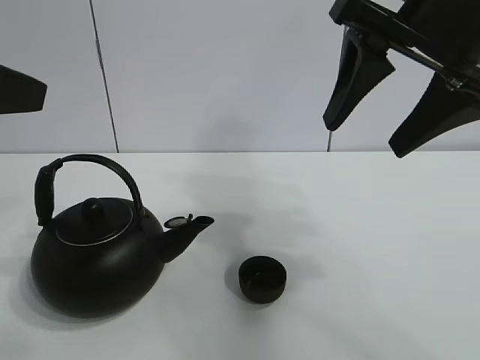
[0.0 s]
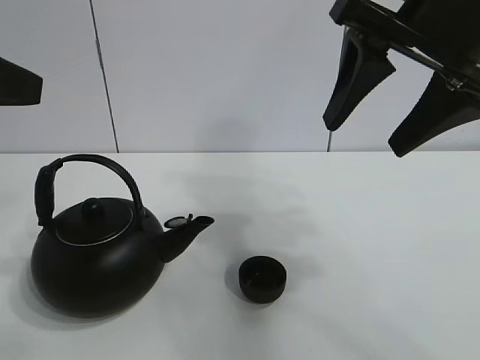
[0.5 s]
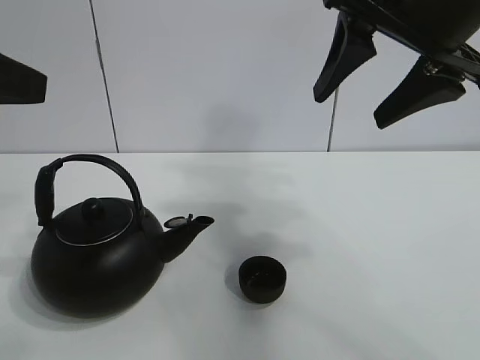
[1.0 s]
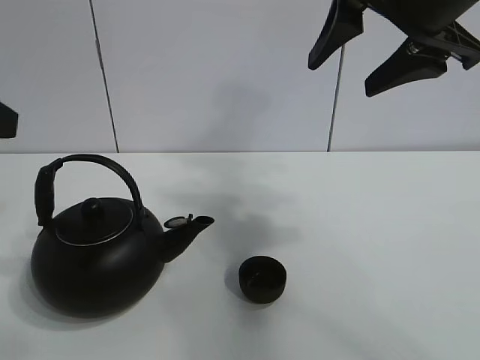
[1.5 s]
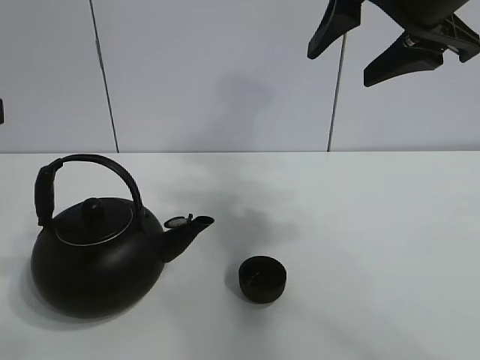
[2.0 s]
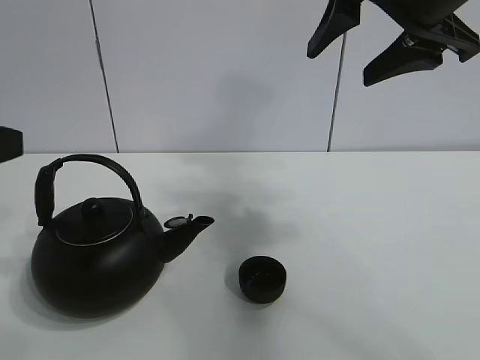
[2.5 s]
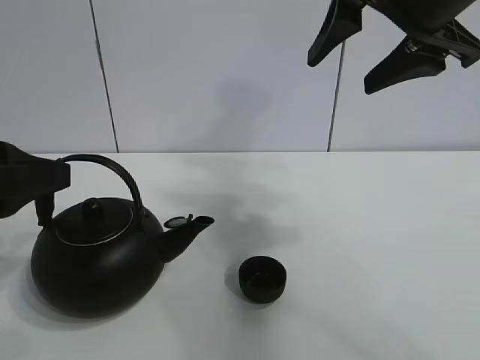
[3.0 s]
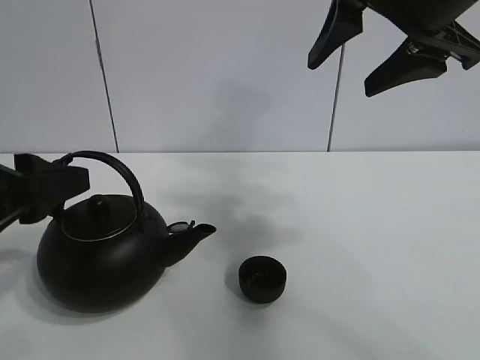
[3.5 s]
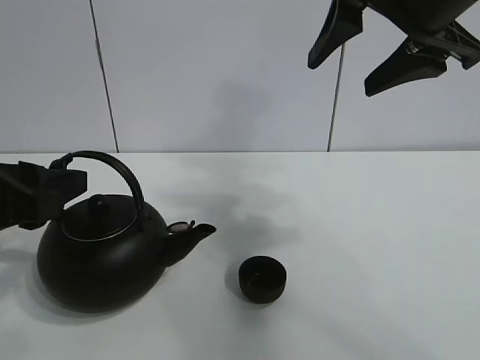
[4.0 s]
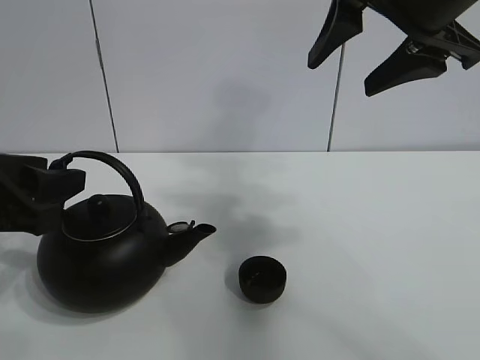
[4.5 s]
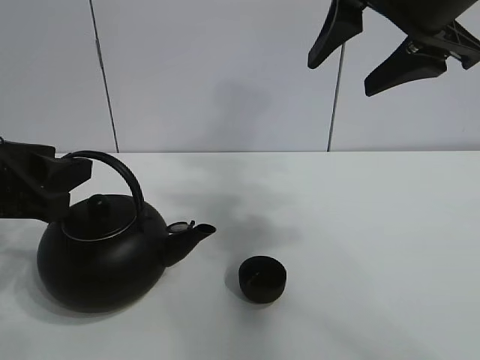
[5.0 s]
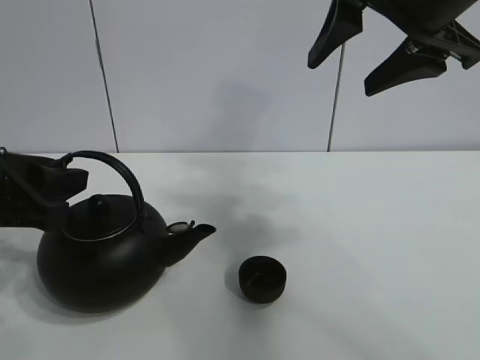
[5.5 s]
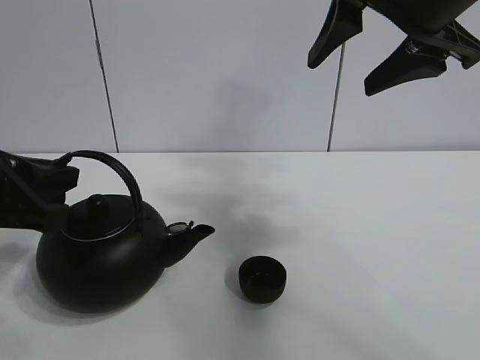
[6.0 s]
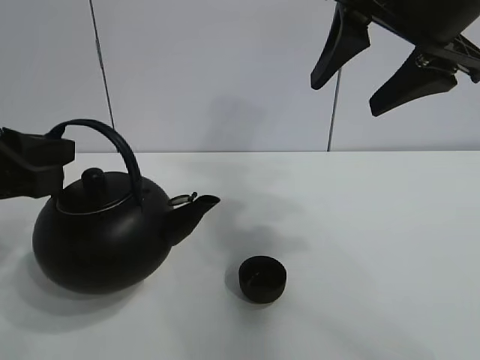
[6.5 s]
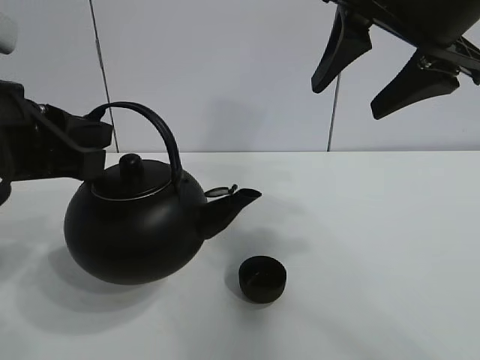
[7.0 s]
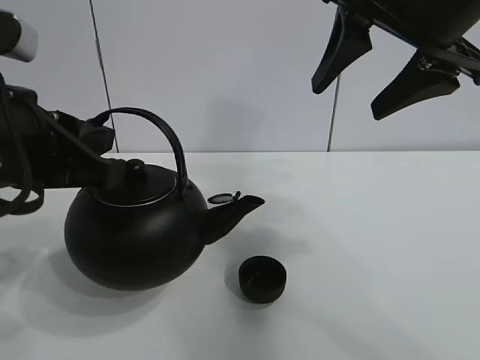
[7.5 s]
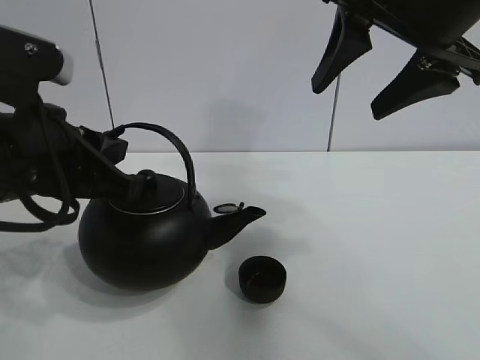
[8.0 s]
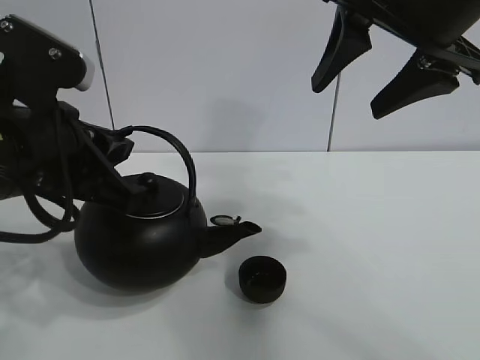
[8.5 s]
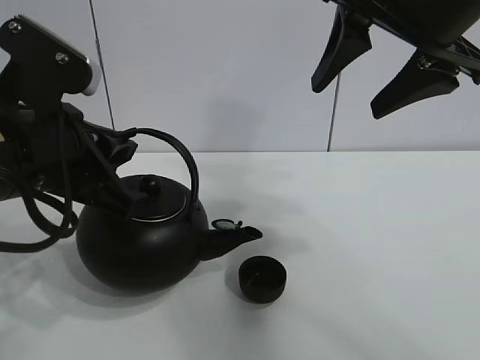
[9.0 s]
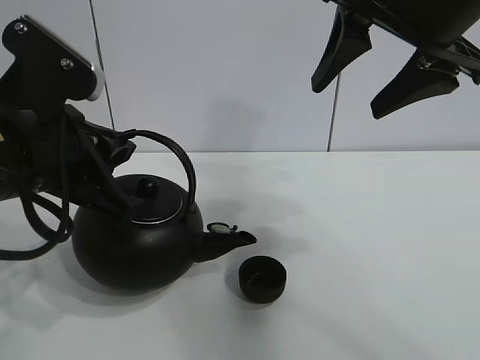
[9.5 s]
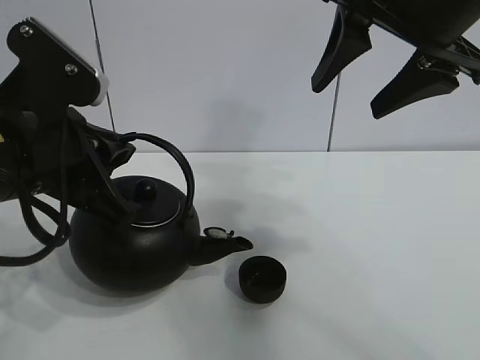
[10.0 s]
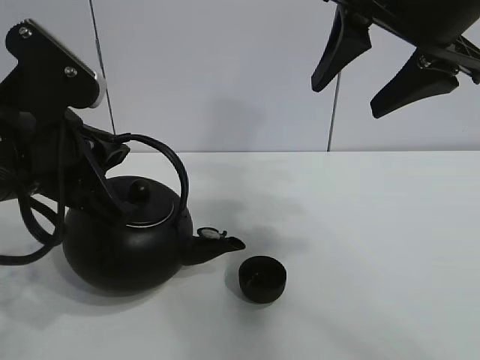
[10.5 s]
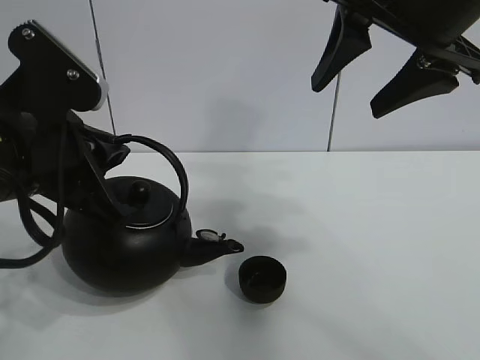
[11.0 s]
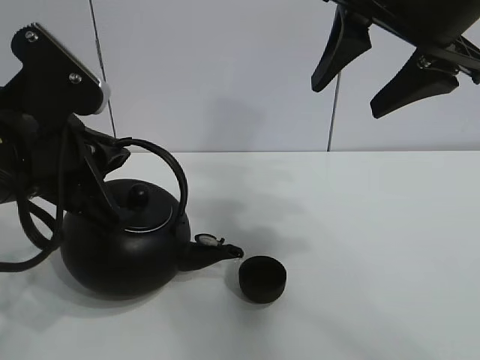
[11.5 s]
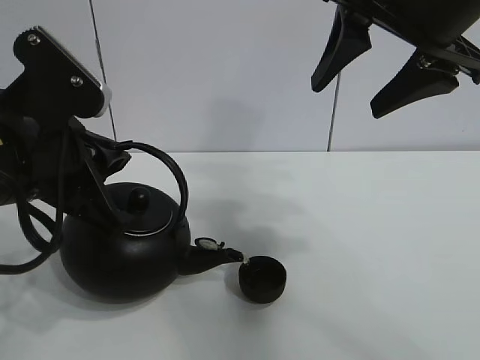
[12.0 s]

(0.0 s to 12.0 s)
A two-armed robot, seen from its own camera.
Task of the whole recording: pour tea into the teacup.
Step, 0.0 s - 6.0 s: Pick up the teapot with the left gripper.
2.0 s - 4.0 s: The left gripper is displaced downward by some 10 cm.
4.0 s - 6.0 s: The left gripper closes up.
6.0 s - 8.0 s: The left gripper moves to the right, roughly 5 cm.
8.0 s - 10.0 s: The grippers make only small movements.
10.0 s - 12.0 s: Neither gripper changes place.

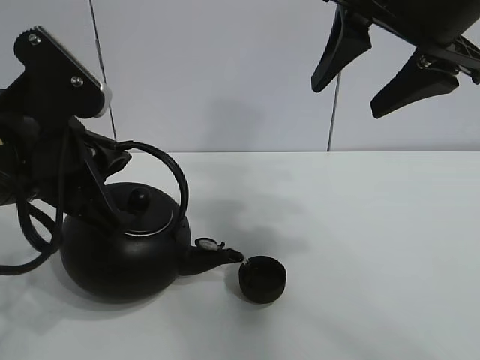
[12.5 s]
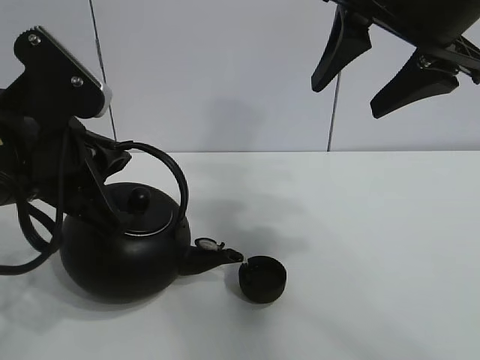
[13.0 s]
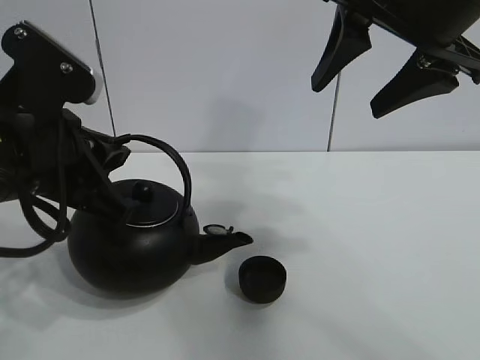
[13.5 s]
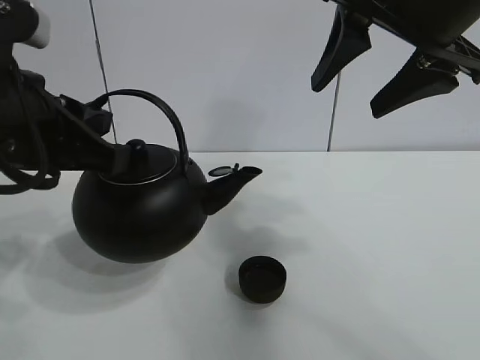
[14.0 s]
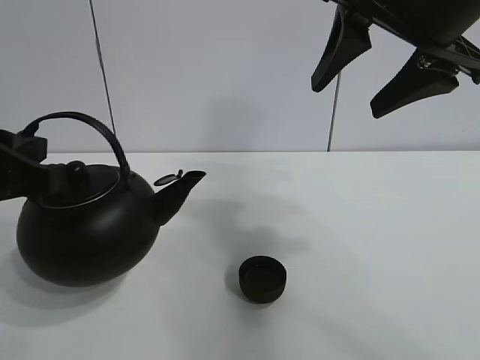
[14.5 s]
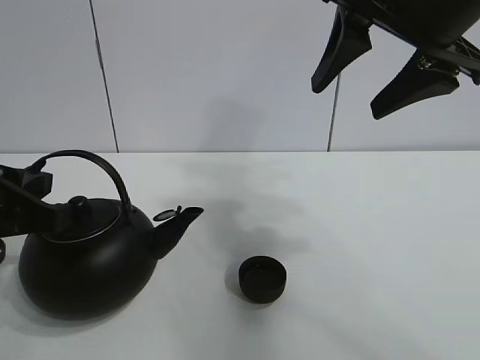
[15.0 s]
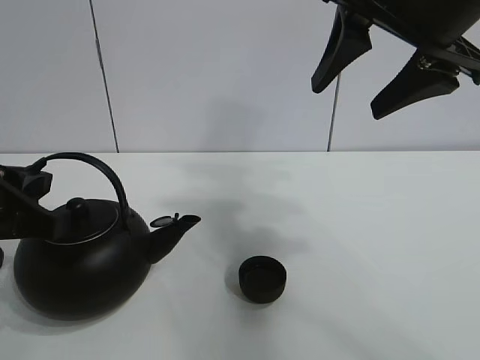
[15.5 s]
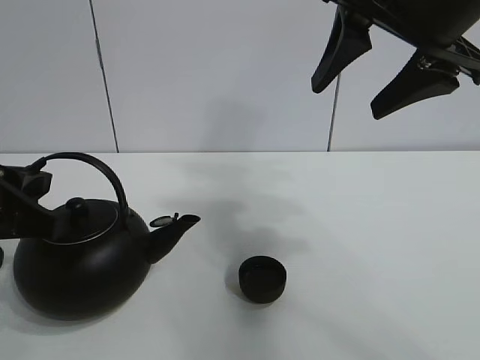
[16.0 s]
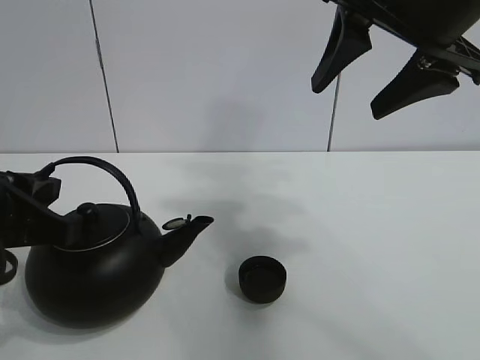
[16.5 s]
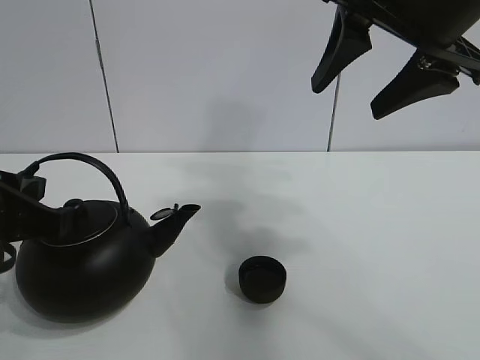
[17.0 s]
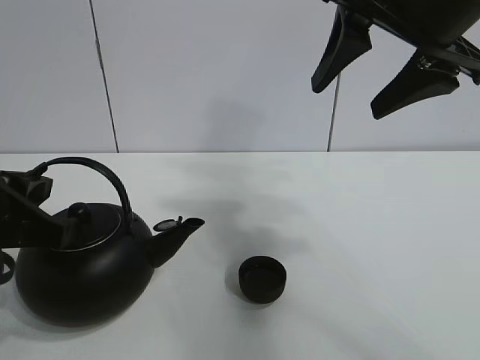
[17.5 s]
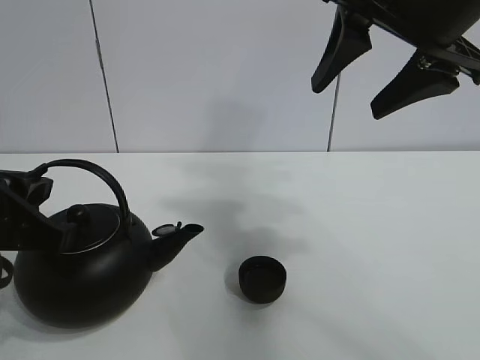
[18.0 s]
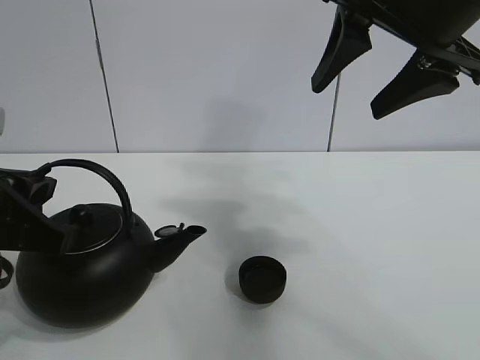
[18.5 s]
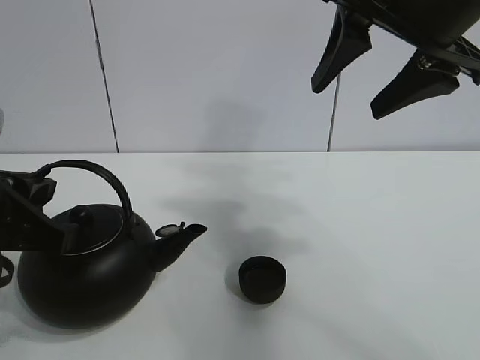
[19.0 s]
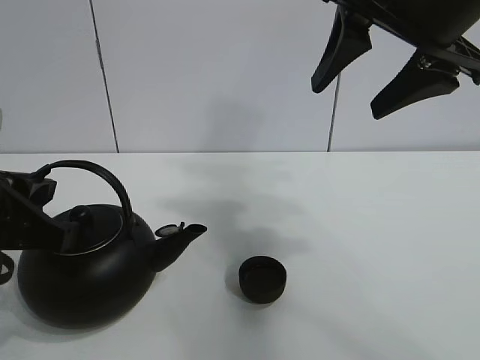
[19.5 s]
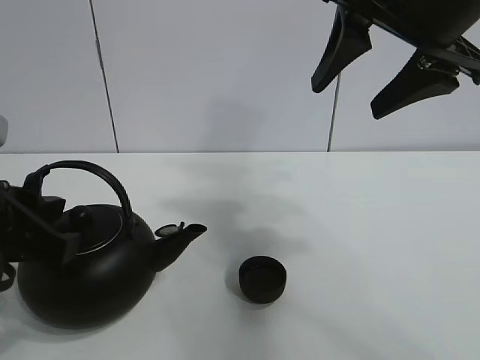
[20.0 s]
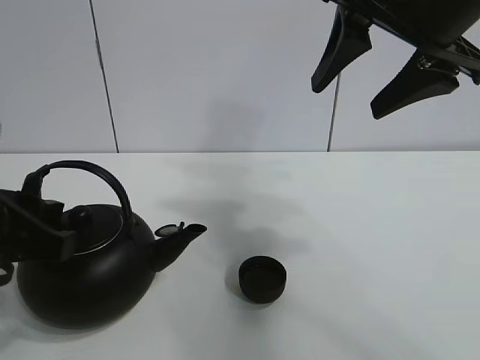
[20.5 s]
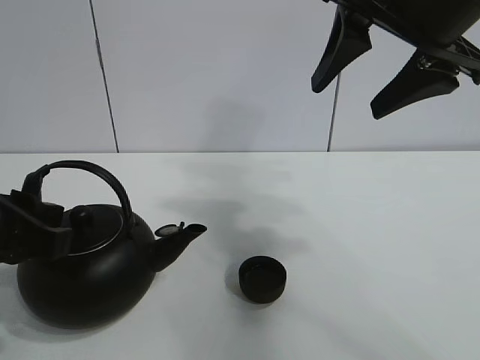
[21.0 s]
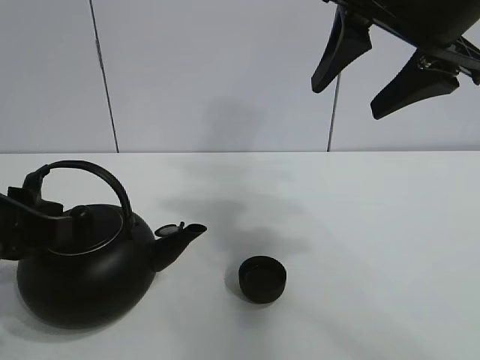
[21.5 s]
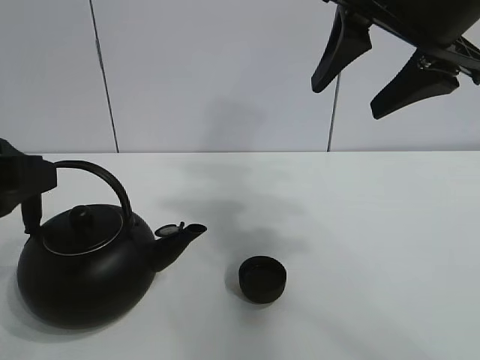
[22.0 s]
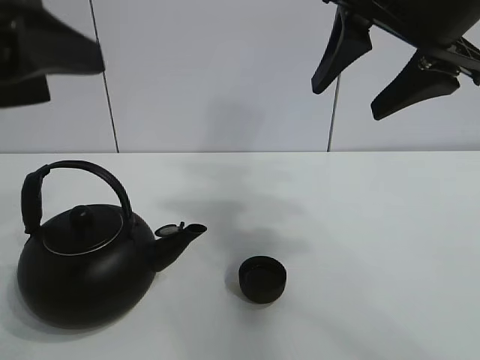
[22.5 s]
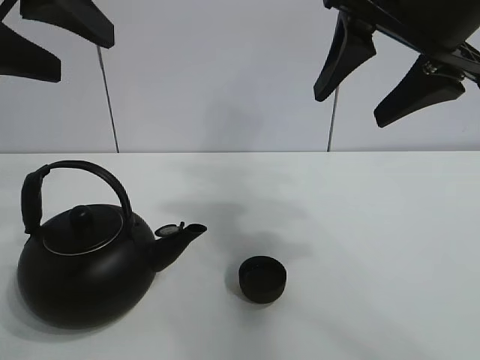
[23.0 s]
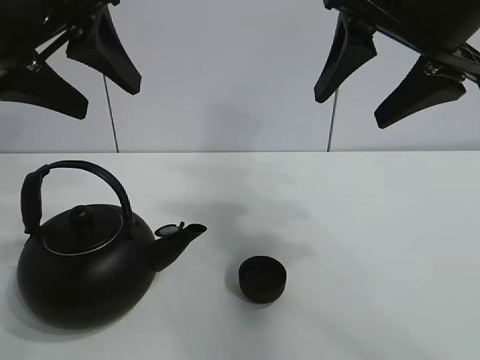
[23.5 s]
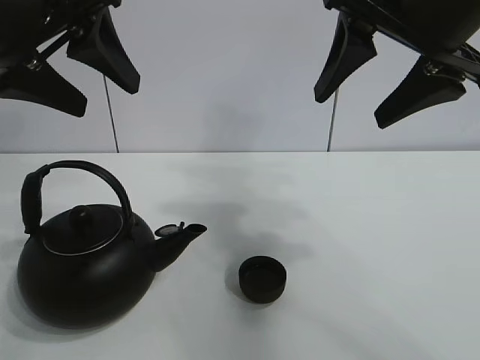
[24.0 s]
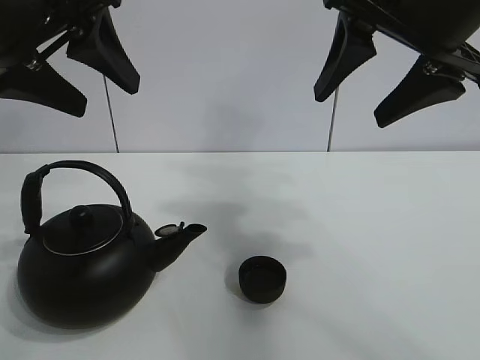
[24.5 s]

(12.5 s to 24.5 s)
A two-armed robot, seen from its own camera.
Task of the whole recording: pour tea into the teacup.
12.5 s - 14.5 s: The left gripper is displaced to the left by roughly 5 cm.
14.5 s - 18.5 s: There are only small adjustments of the grippers.
18.5 s - 20.5 s: The left gripper opens its fingers.
20.5 s - 22.5 s: The left gripper moves upward, some 15 cm.
22.5 s - 24.5 s: The left gripper shifts approximately 10 cm forward.
